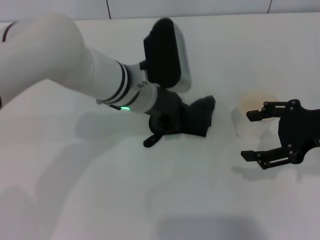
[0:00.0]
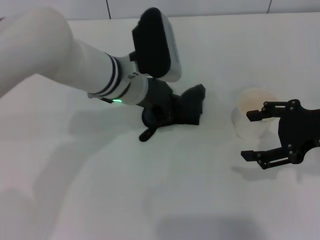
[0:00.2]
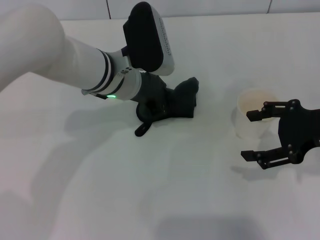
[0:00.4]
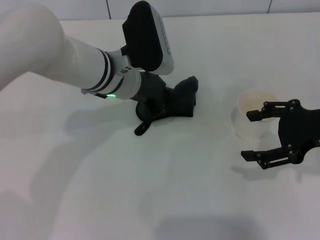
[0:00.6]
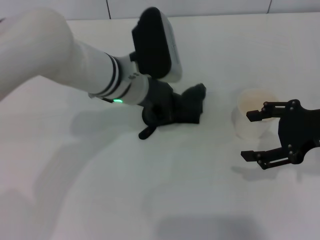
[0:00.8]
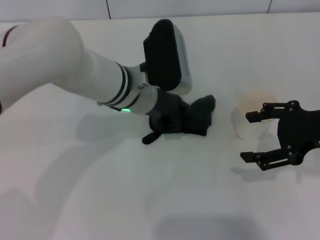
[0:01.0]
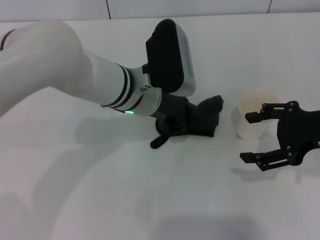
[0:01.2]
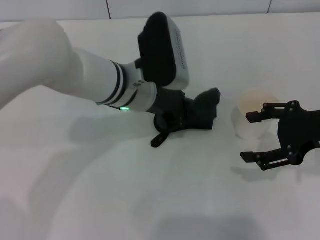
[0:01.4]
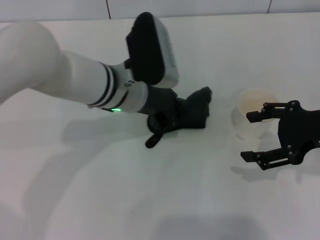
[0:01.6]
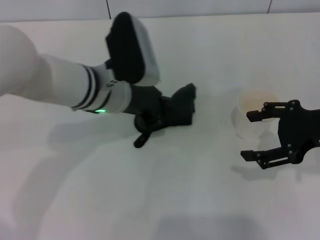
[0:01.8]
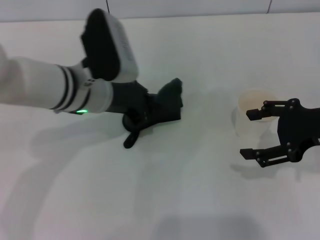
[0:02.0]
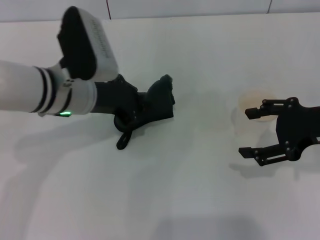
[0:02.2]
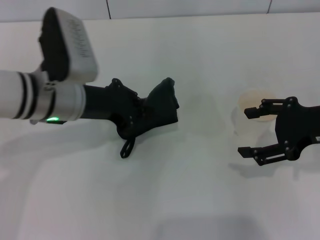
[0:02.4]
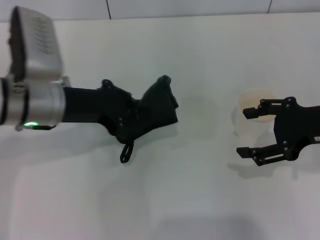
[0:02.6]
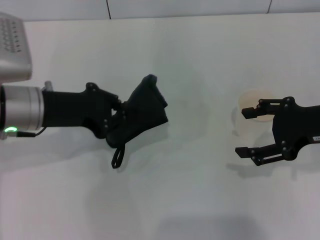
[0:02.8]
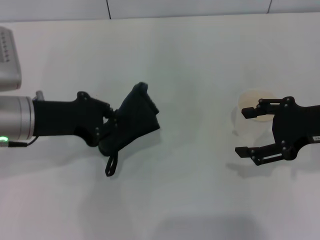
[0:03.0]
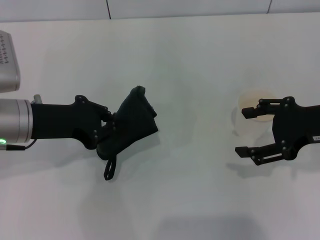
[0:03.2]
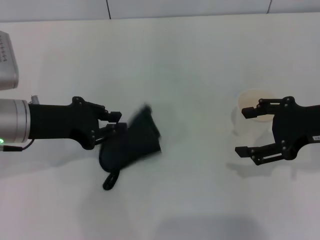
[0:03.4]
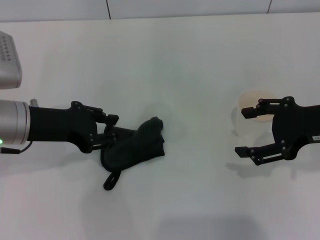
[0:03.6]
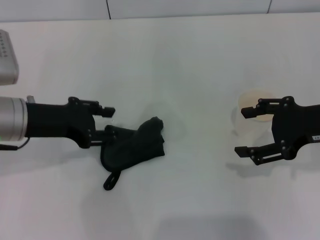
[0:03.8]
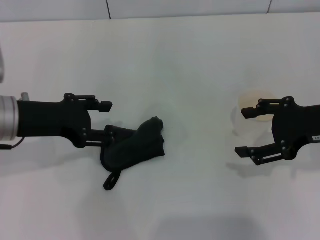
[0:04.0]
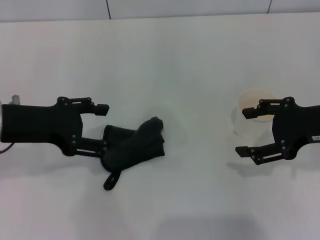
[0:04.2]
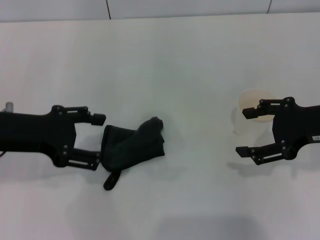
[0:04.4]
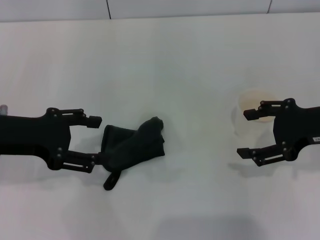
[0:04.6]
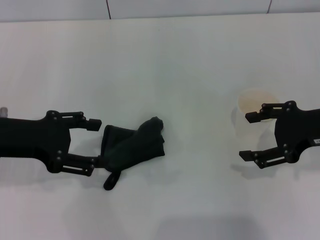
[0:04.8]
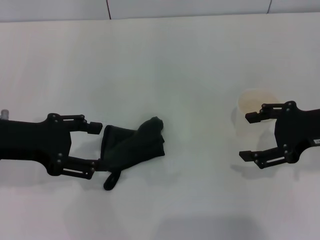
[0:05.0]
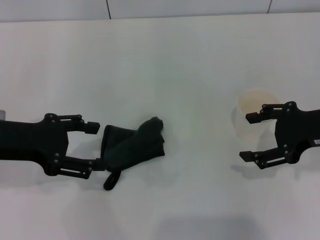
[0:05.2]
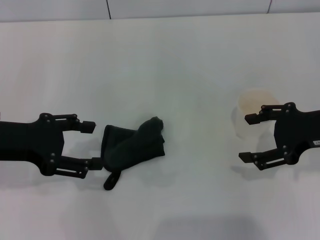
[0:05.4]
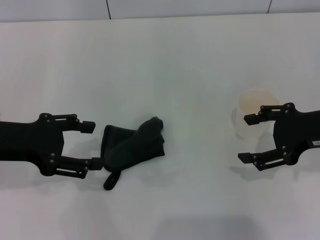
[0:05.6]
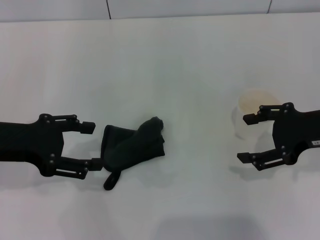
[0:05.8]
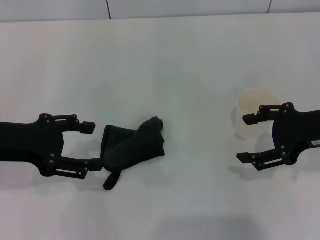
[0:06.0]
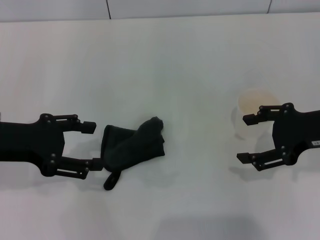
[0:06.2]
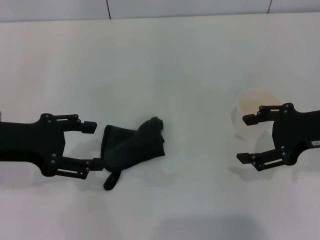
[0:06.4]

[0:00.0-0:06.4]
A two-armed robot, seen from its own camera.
Step, 0:00.0 to 0:02.6: Wipe the stains off the table with the left gripper.
Step, 0:02.8 to 0:03.6: Place the rag on the table with the left gripper.
0:00.0 to 0:01.6: The grippers make only small movements.
0:01.6 to 0:03.2: The left gripper travels to the left by roughly 15 cm.
0:03.2 to 0:04.8: The left gripper changes place by about 5 cm, and opens its fingers.
0:04.8 to 0:06.4: Both grippers stay put.
